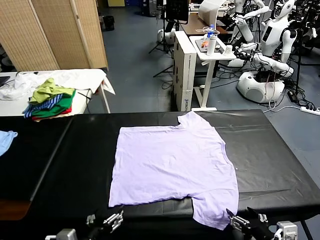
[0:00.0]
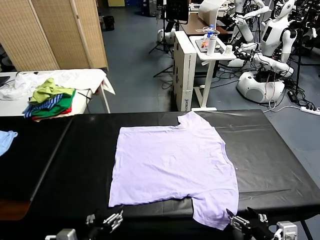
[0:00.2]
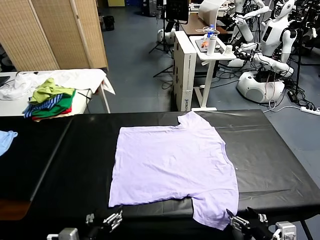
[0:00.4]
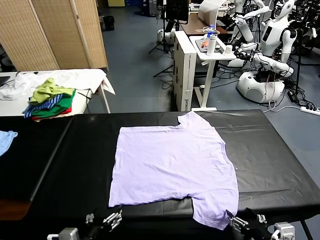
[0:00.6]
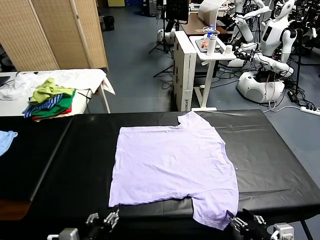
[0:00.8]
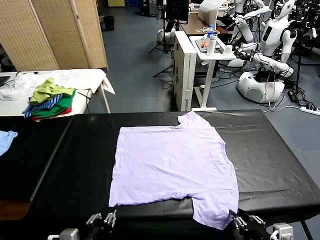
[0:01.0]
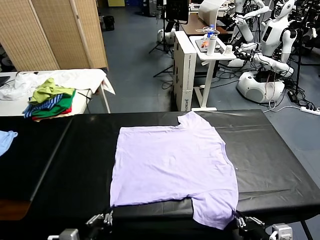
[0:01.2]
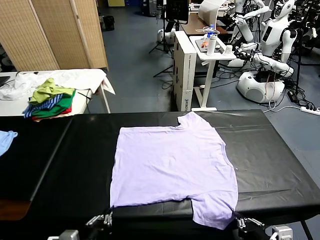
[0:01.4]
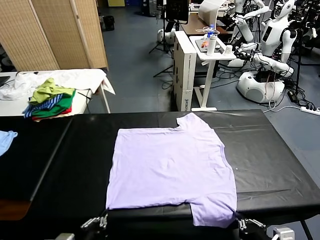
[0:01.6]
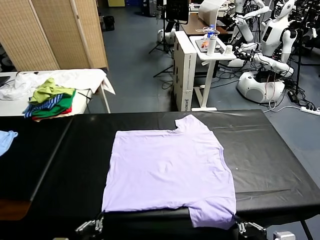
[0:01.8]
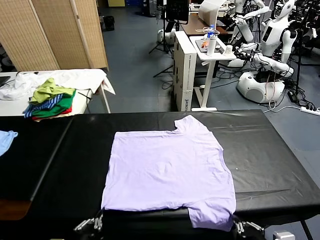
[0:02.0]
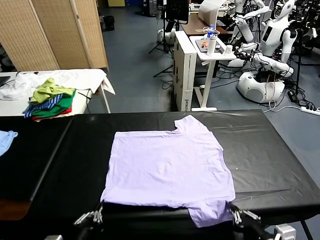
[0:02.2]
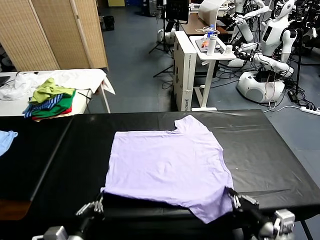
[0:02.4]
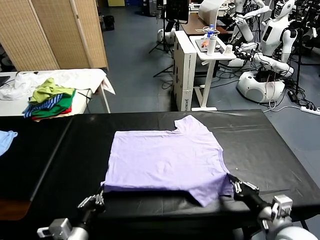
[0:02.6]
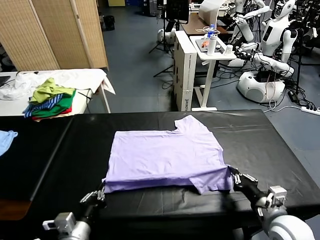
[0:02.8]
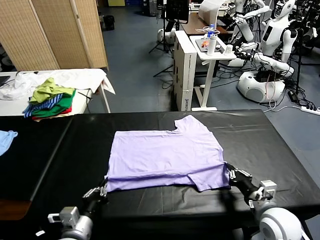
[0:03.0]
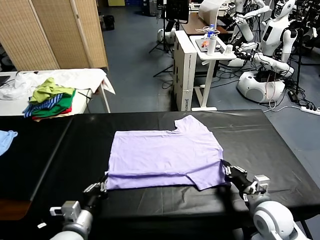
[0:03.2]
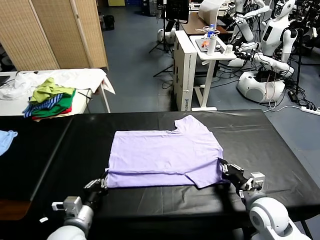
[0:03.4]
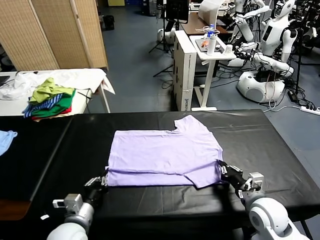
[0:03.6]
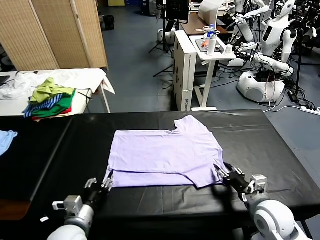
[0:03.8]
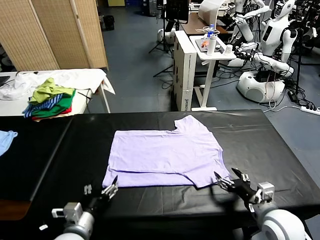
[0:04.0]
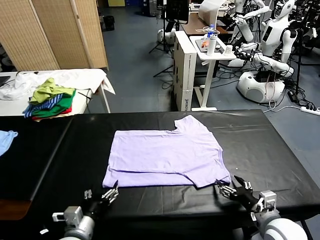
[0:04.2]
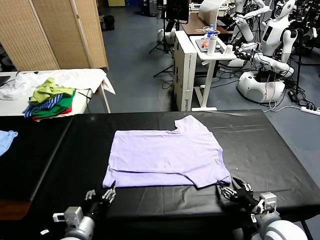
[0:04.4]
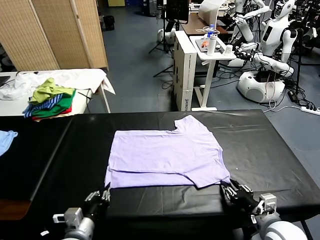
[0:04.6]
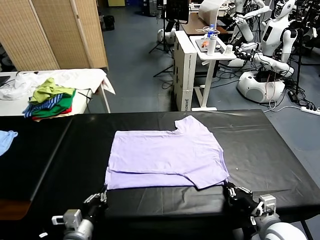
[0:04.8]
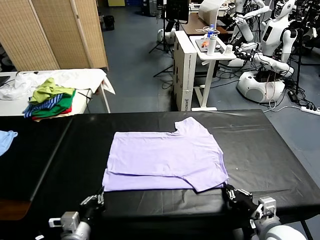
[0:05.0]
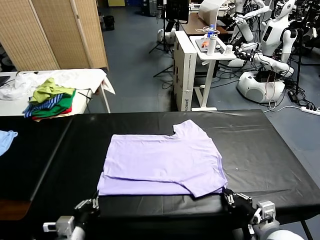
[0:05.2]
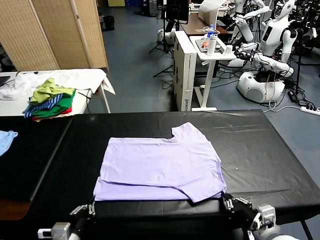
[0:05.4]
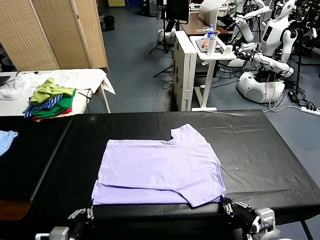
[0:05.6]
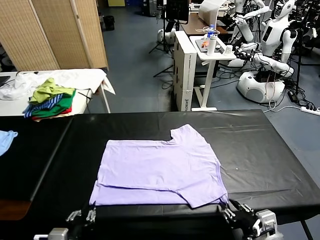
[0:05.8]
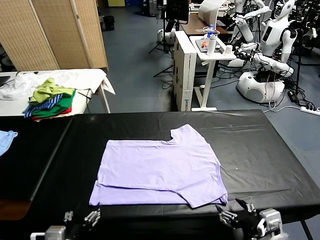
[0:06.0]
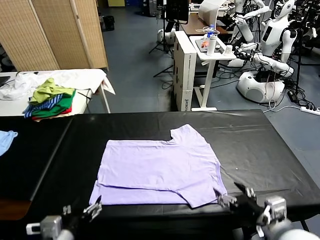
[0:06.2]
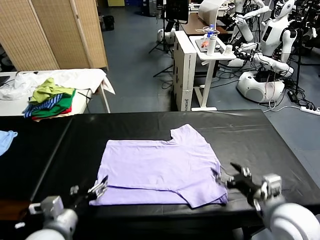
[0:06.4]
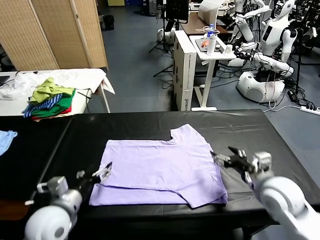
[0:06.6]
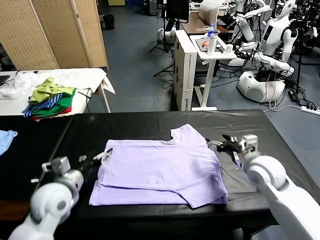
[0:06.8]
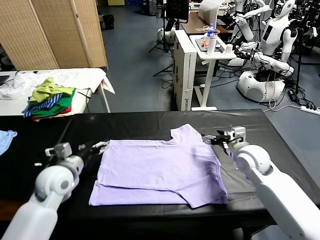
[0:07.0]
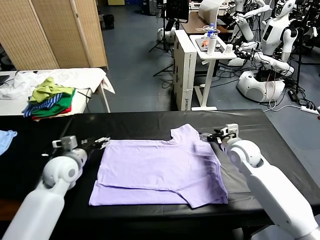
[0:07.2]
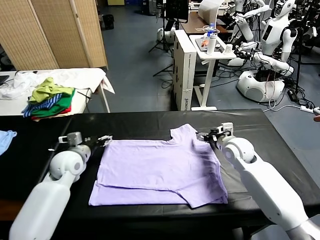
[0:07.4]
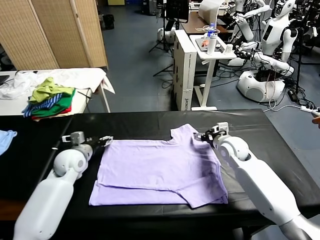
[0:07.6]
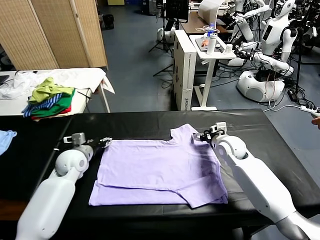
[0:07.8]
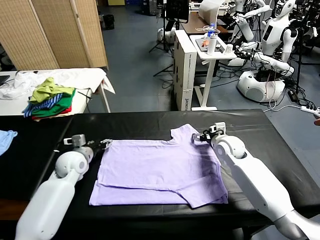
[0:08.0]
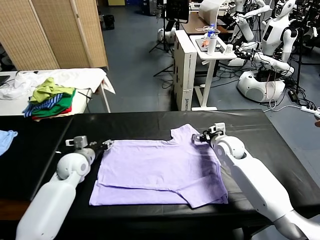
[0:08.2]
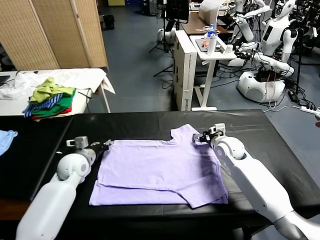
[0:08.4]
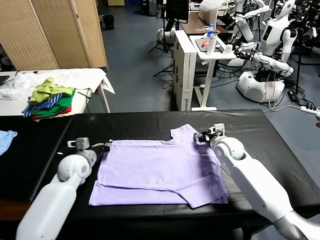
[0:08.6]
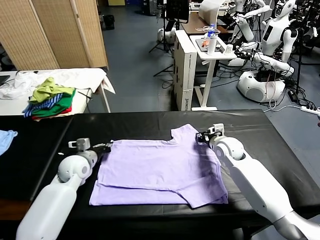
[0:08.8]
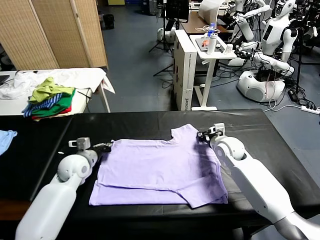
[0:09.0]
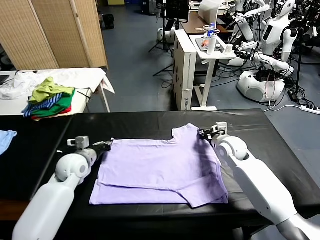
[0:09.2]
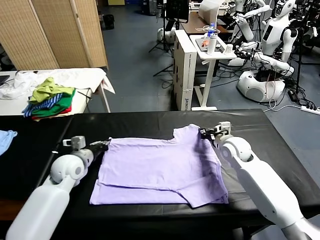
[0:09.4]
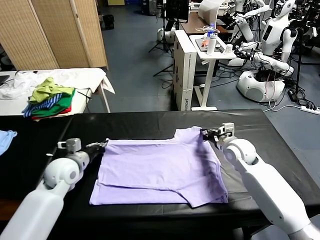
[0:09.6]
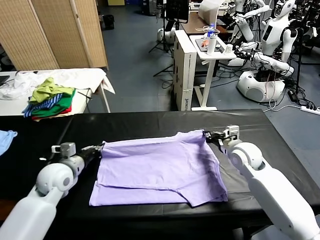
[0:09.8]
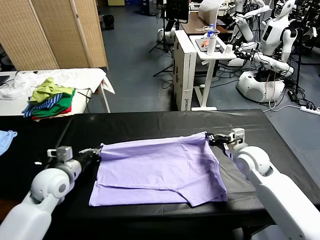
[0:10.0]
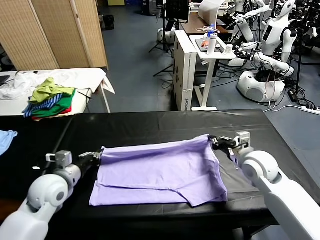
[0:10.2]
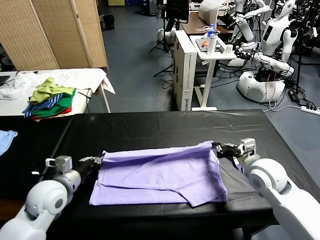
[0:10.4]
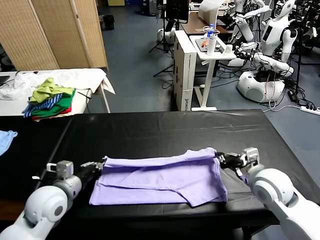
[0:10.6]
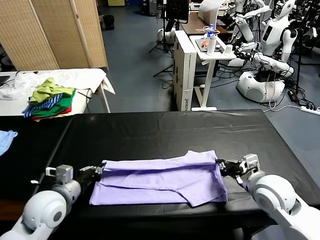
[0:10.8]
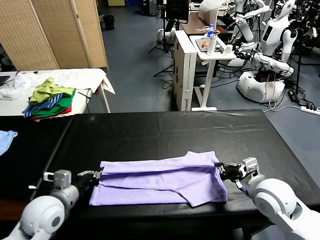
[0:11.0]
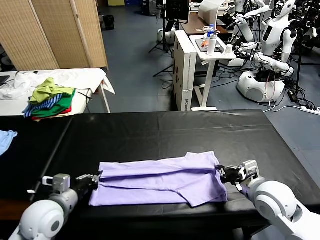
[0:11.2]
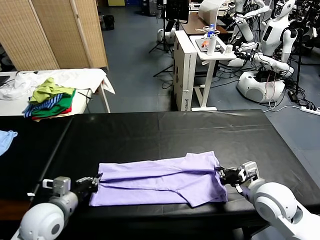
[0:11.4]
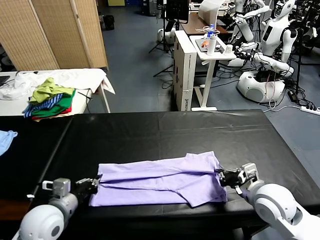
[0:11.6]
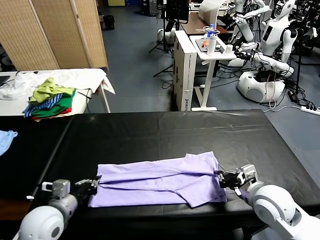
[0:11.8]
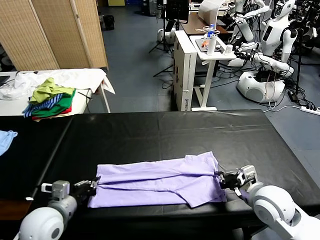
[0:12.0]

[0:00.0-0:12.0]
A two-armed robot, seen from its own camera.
Task of the whole recording: fold and organize the clothes.
Step, 0:00.0 to 0:01.4: use both grippers simultaneously to clamp the lower edge of the clothing fabric.
Step, 0:01.6 to 0:03.8: use both grippers to drag the lower edge of the fabric forward and fold it over the upper edge.
Step, 0:04.0 to 0:05.8: Drag the clothes downward with both gripper.
Step, 0:06.0 to 0:09.0: use both grippers simultaneously to clamp the upper edge of the clothing fabric.
0:01.6 to 0:03.0: The right gripper goes approximately 15 cm forward; the left gripper moves forward, approximately 10 cm.
0:03.0 to 0:04.4: The left gripper opens its fingers. Meanwhile the right gripper travels backward by approximately 5 cm, and opens, then closes once more.
0:04.4 to 0:06.0: The right gripper is displaced upward by about 10 cm, and opens its fingers. The left gripper is displaced upward and backward by roughly 10 cm, and opens its fingers.
0:06.0 to 0:07.6: Both grippers move forward, roughly 30 cm.
0:07.6 to 0:09.0: The right gripper closes up; the left gripper closes.
0:09.0 to 0:10.4: Both grippers move backward, approximately 15 cm.
0:10.4 to 0:12.0: The left gripper moves backward, some 5 cm.

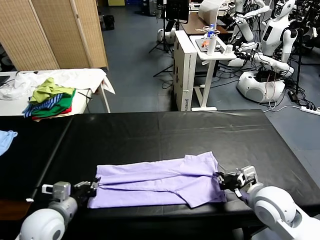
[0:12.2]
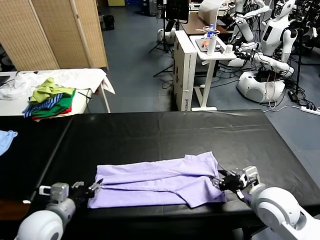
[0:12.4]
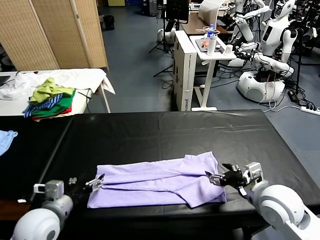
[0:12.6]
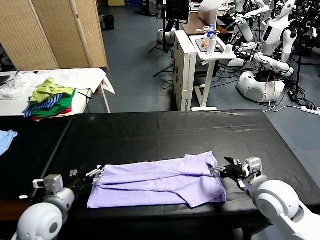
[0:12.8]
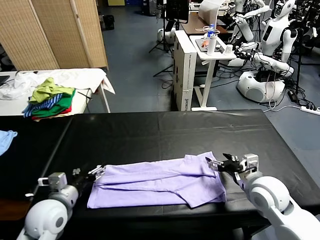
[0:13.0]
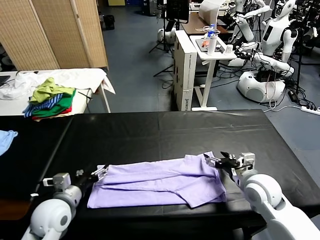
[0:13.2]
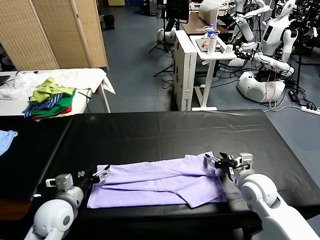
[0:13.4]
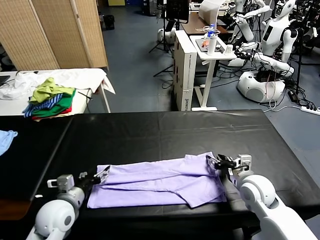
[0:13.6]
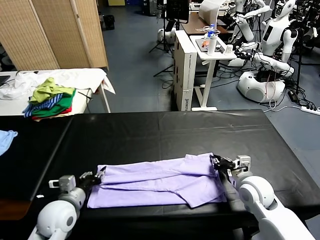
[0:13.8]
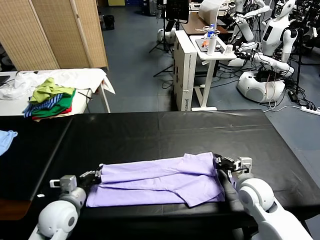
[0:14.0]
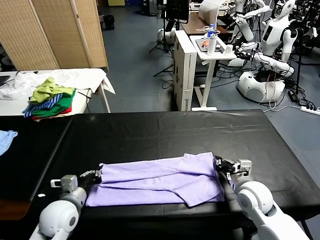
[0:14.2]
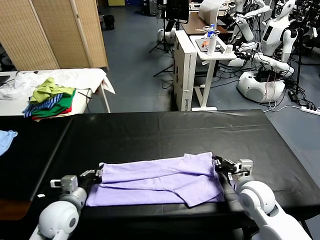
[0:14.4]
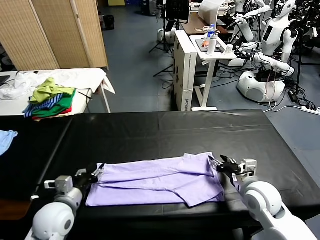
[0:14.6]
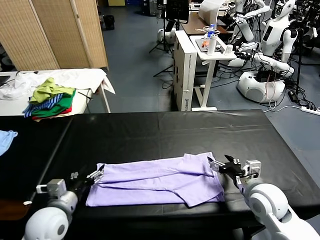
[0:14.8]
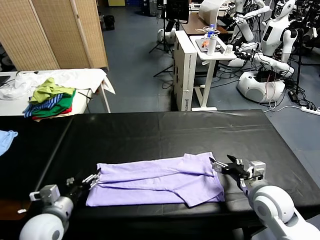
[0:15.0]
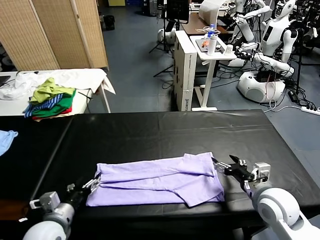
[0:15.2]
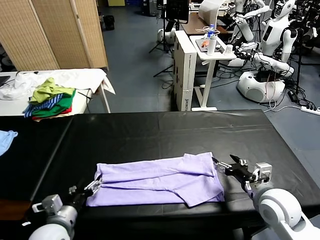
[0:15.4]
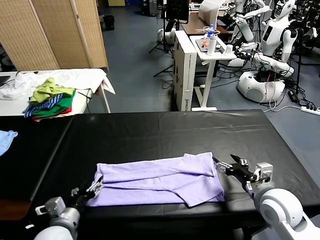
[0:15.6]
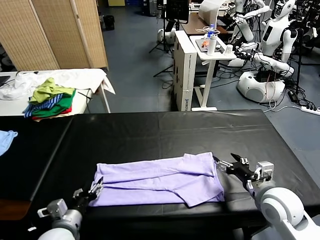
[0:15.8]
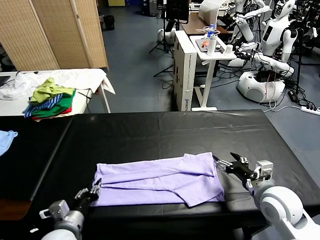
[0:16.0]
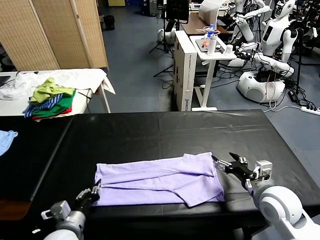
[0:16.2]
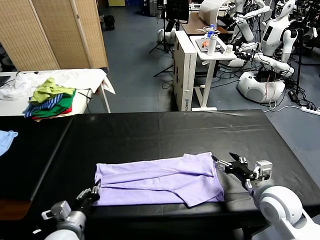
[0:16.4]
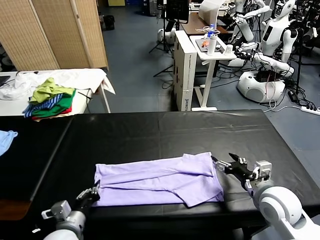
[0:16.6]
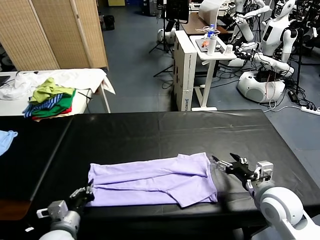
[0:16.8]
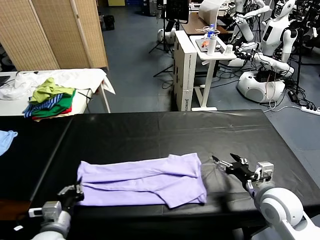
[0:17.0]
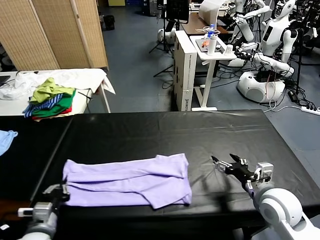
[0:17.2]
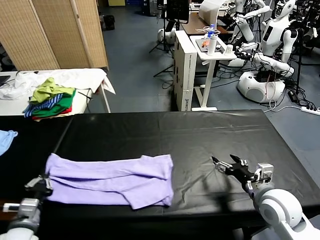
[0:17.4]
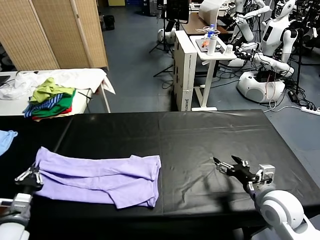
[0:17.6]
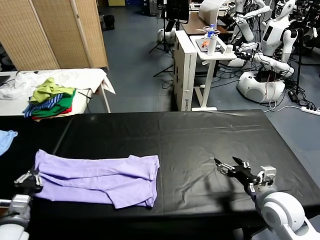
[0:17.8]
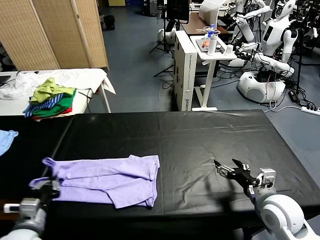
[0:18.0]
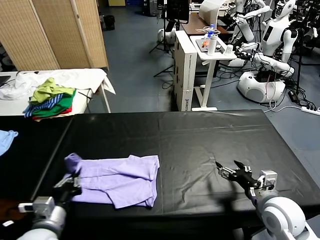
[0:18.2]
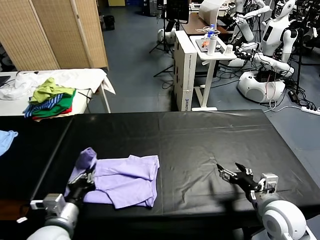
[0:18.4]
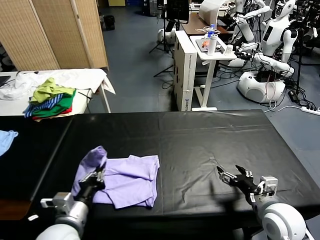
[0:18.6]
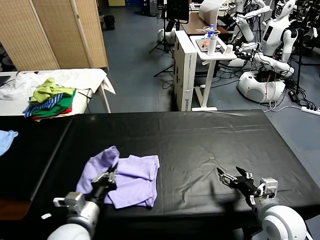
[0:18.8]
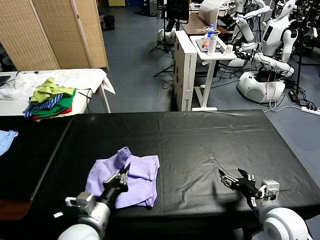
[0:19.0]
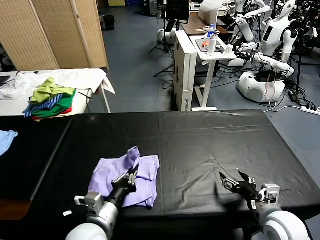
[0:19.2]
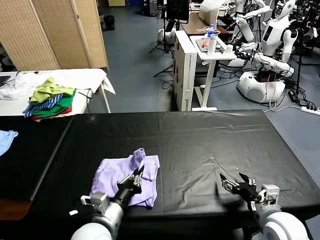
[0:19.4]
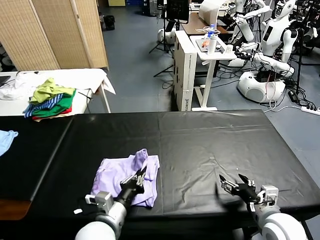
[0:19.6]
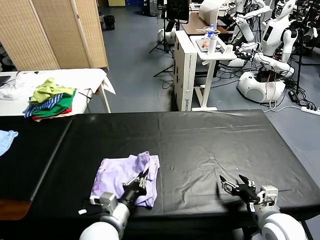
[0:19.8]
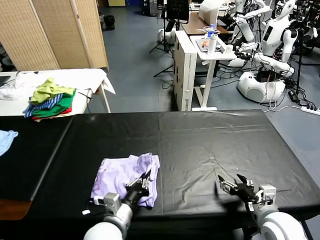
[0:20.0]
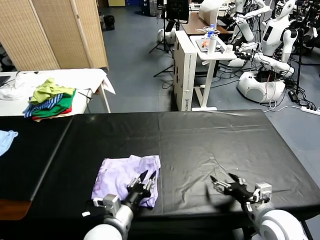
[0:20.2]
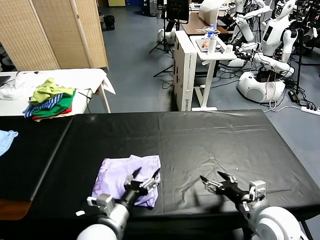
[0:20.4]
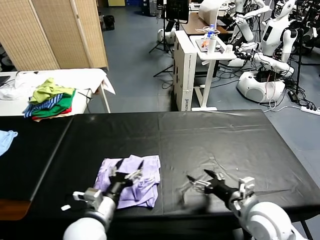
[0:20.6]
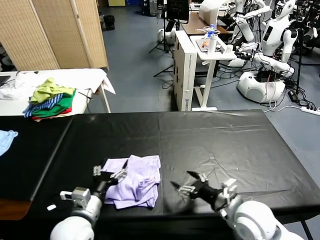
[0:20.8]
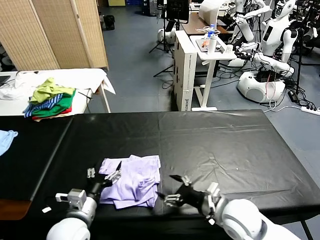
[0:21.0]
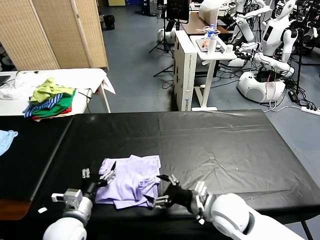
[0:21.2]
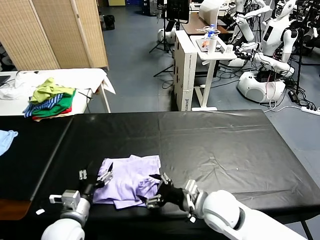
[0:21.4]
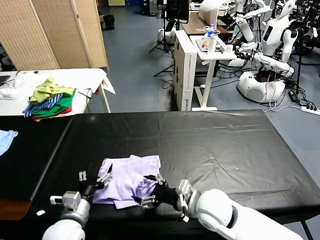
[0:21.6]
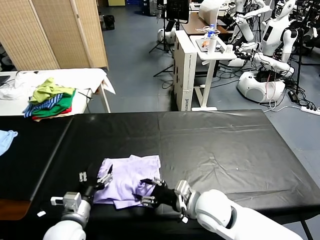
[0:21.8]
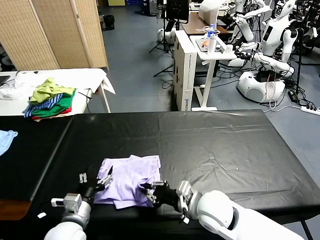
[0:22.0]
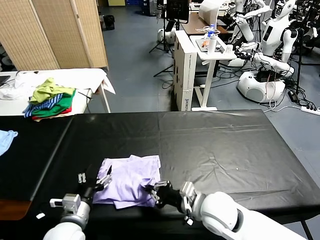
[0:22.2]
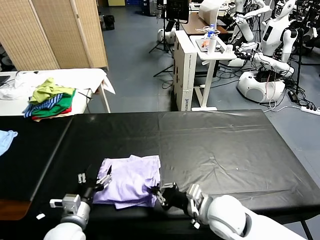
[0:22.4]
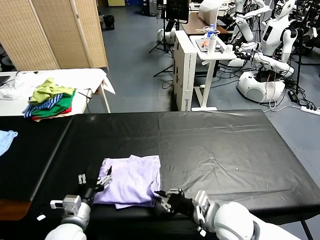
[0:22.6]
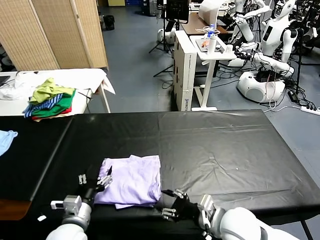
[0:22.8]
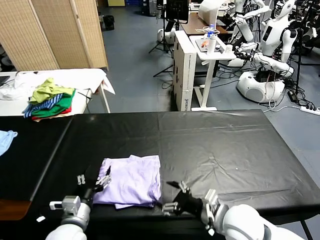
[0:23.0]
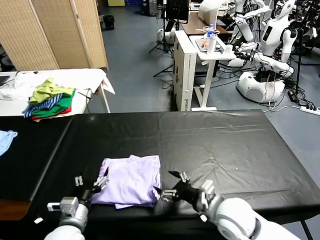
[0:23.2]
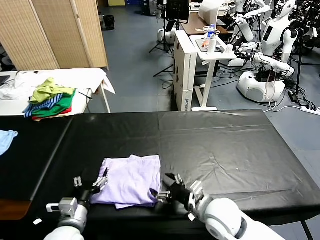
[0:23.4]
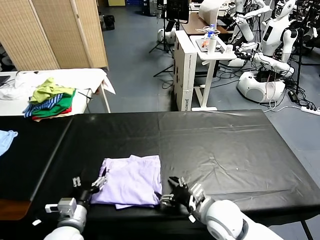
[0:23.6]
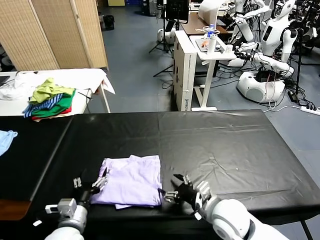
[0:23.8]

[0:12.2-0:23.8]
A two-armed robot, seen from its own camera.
Task of the whole recording: fold and organize the clothes.
Step, 0:12.6 to 0:16.6: use the left gripper to clamp the left edge of the fabric.
Step, 0:16.8 to 0:20.4: use the left gripper to drag the left edge of the fabric to the left and folds it over the right edge.
0:12.2 to 0:13.6: The left gripper ends up about 5 cm from where it was, and opens up, while the right gripper shifts some 10 cm downward and forward, and closes its fingers.
0:13.6 to 0:15.0: The left gripper moves roughly 5 cm, and closes, then opens again. Meanwhile the right gripper is displaced backward by approximately 5 cm, and opens its fingers.
0:15.0 to 0:16.6: The left gripper ends up about 5 cm from where it was, and closes its fingers.
0:16.6 to 0:18.0: The left gripper moves to the left, some 5 cm.
0:18.0 to 0:19.4: The left gripper travels to the right by some 20 cm.
0:19.4 to 0:21.0: The right gripper moves to the left, approximately 10 cm, while the left gripper travels to the left by approximately 5 cm, and opens.
0:21.0 to 0:22.4: The right gripper closes up.
0:22.4 to 0:23.8: The right gripper opens.
